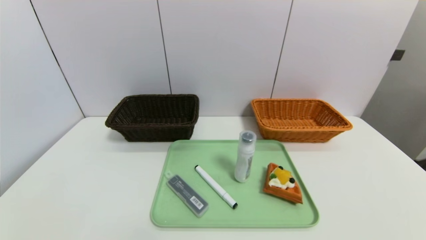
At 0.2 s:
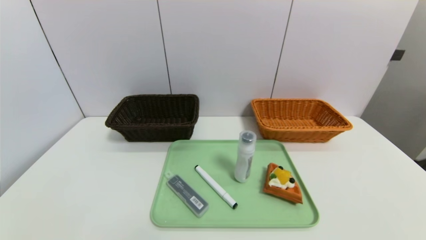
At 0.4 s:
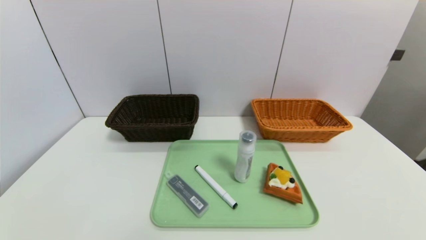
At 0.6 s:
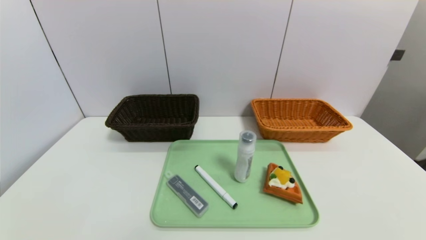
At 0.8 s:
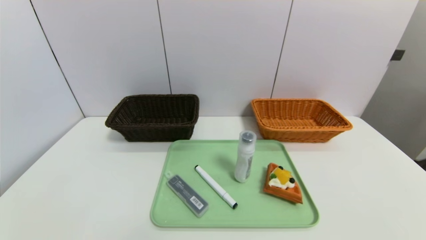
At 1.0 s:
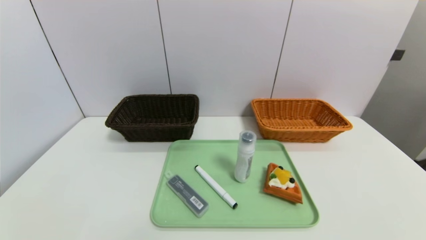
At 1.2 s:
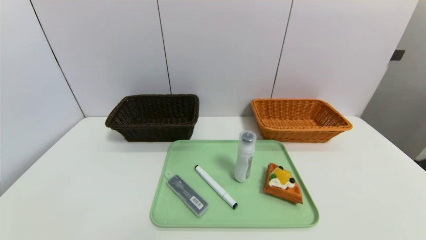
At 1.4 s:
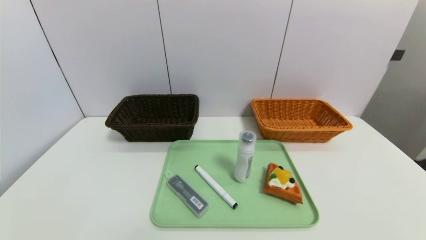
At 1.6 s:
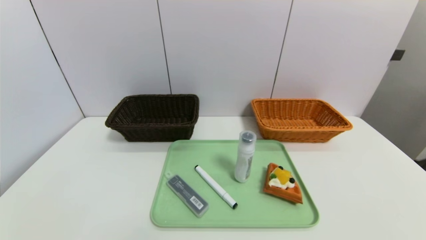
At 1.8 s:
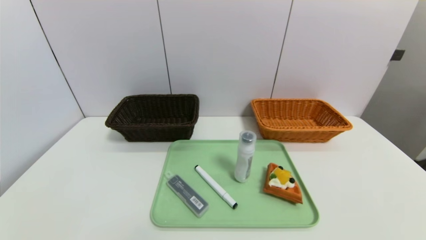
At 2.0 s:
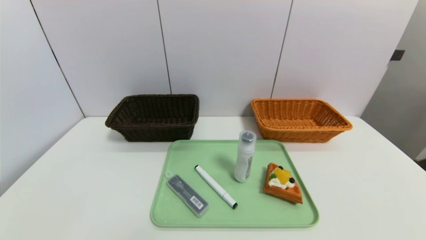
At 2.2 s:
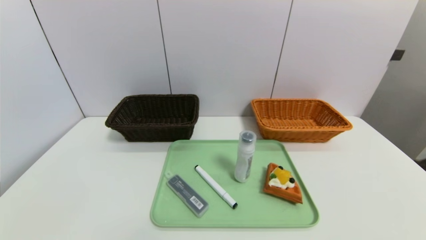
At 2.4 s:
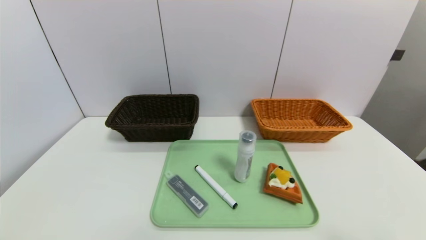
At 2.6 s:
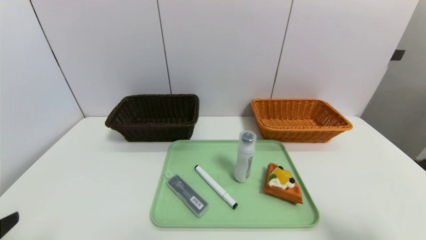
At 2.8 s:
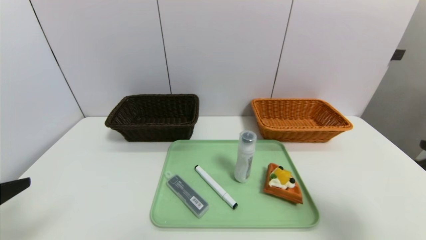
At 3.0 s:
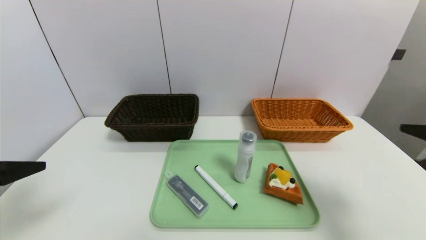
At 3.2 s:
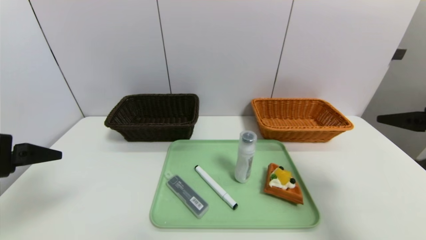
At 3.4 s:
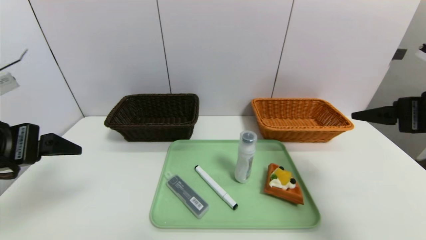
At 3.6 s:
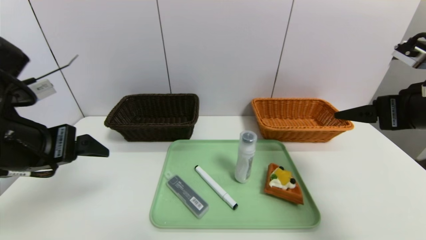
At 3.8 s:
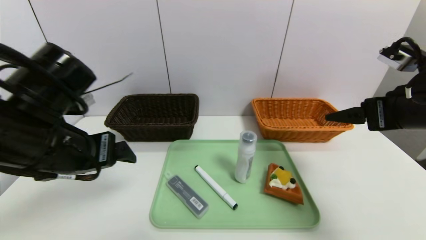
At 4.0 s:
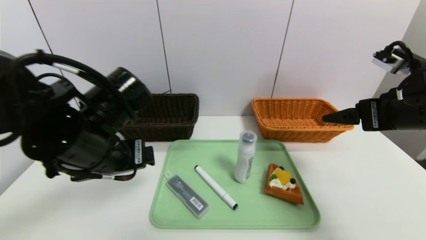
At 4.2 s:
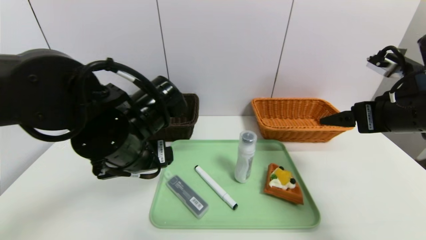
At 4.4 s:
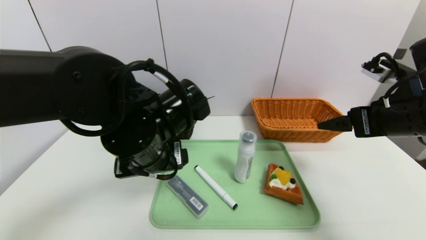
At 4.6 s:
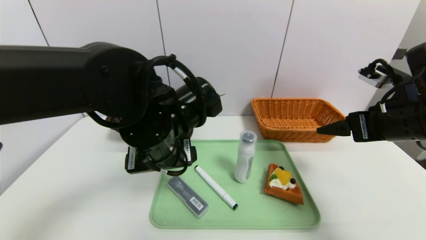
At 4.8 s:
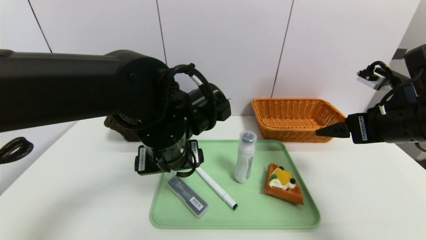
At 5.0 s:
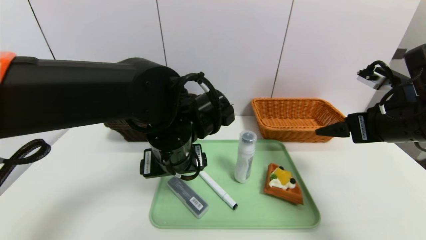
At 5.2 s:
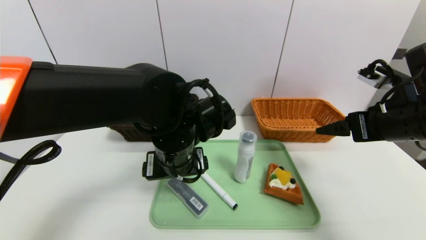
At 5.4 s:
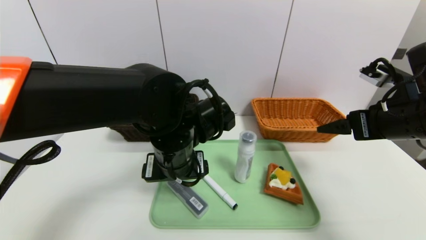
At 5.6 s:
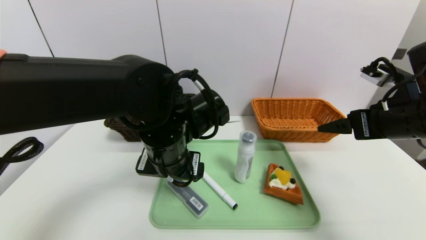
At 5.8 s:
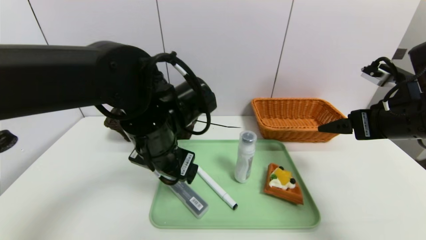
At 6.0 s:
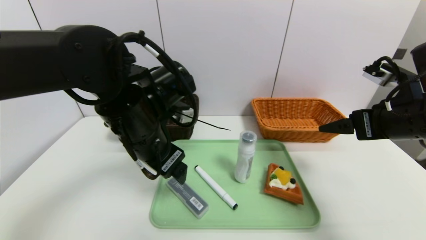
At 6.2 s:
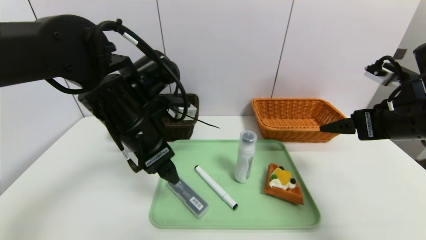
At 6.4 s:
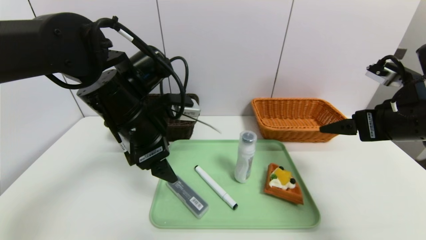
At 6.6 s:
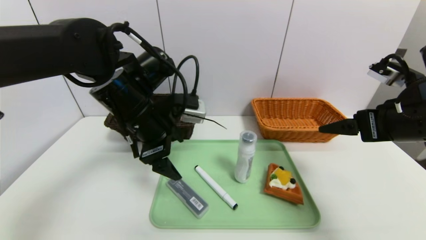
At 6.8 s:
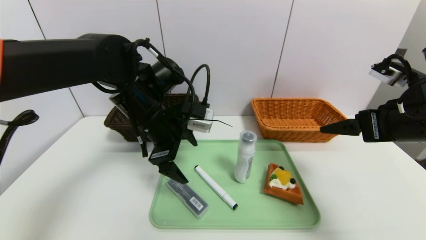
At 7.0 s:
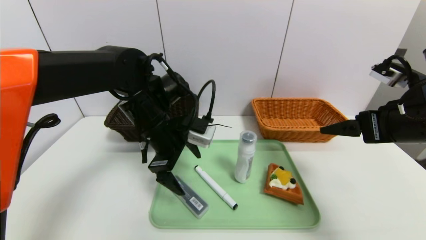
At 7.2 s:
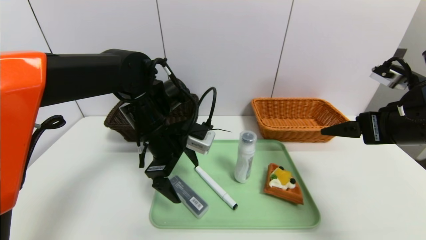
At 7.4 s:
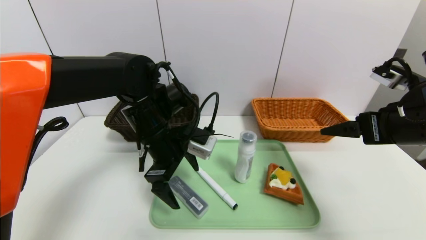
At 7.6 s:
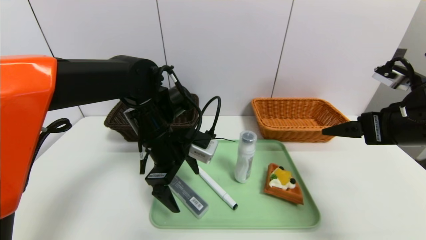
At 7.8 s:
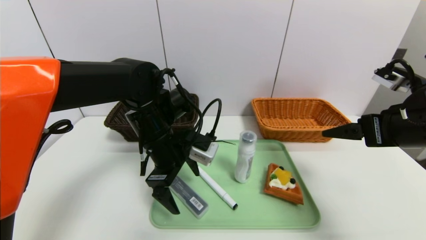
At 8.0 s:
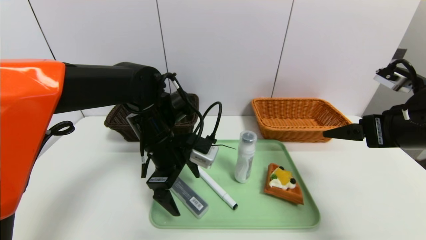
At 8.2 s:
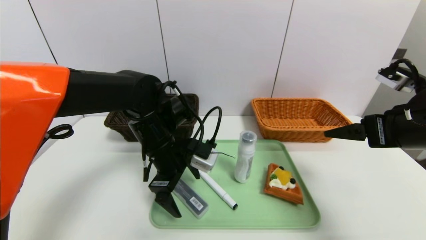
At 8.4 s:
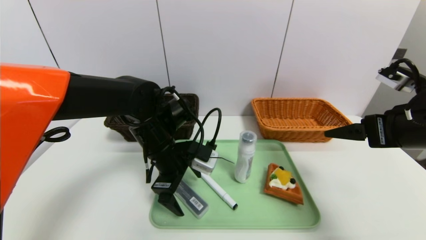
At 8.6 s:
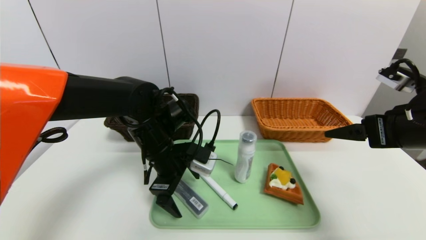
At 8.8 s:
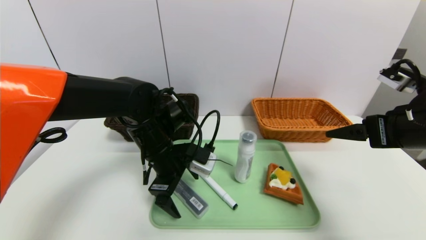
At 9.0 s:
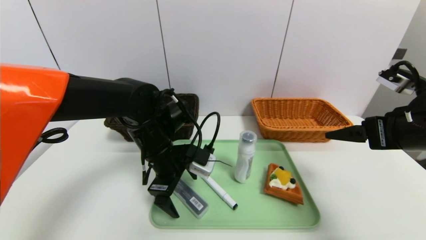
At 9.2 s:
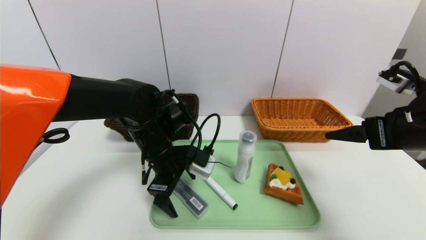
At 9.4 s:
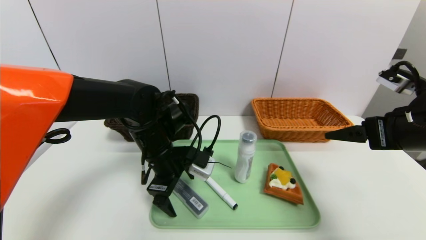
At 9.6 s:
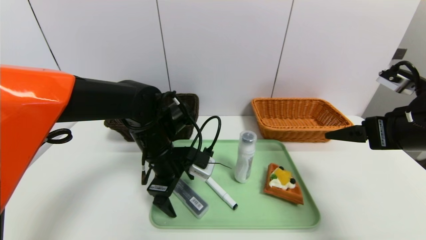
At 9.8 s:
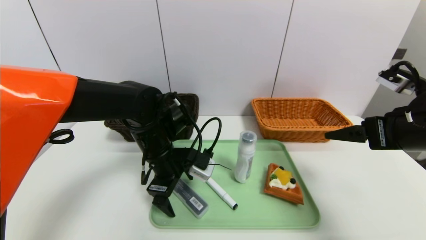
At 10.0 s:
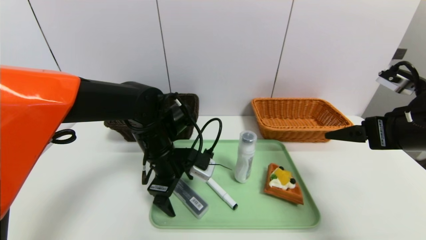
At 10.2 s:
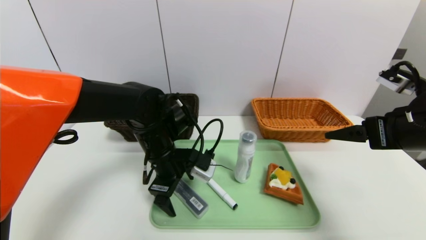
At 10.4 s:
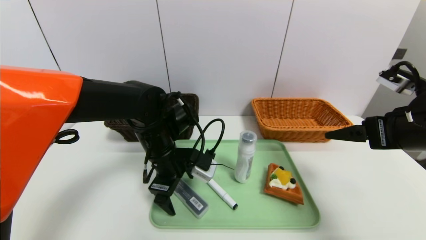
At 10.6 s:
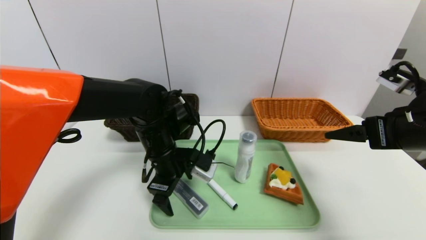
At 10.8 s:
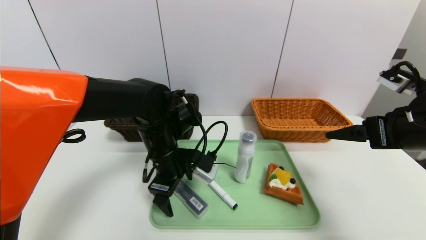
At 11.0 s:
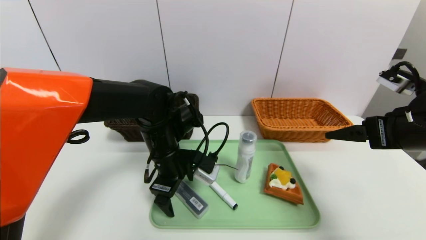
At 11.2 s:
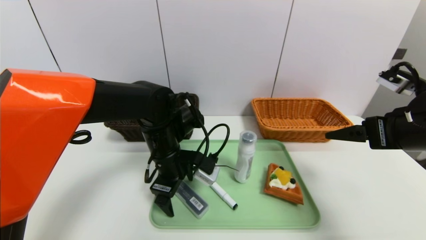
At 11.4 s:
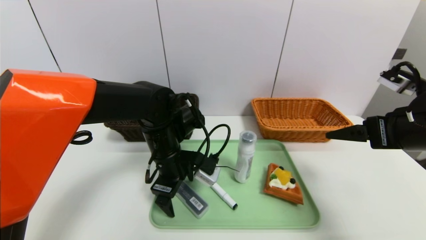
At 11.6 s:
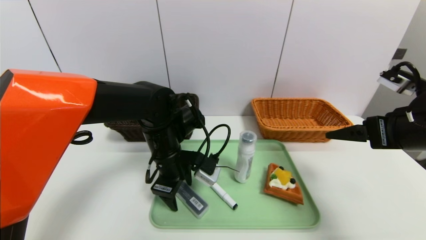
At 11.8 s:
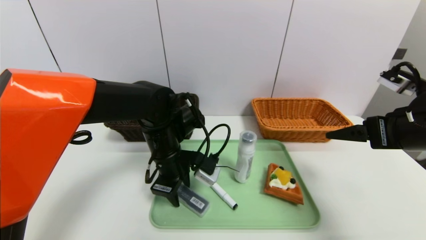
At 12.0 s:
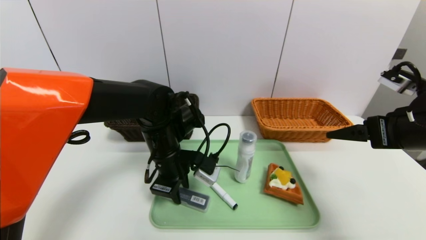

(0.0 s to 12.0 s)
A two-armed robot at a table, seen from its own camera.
Task of the whole recording: place the food in the right basket with the right gripper, and place the non food items in the left basket with the left gripper.
0.0 s - 1.6 s: Neither gripper changes place.
1.6 s - 3.0 s: The grippers both shift upward and forward by roughly 25 cm.
3.0 s - 4.4 s: The right gripper shifts approximately 10 cm forward, while the left gripper goes some 25 cm to the right and forward.
6.0 s - 7.6 s: The left gripper ends up approximately 5 cm from where it was.
7.6 s - 10.4 s: The grippers make only small movements.
10.4 s - 12.0 s: The left gripper closes.

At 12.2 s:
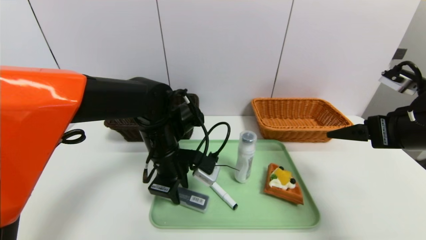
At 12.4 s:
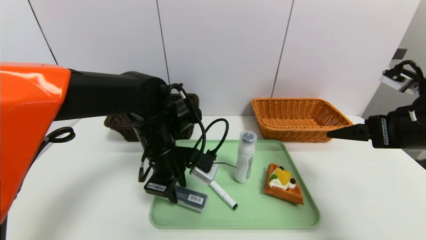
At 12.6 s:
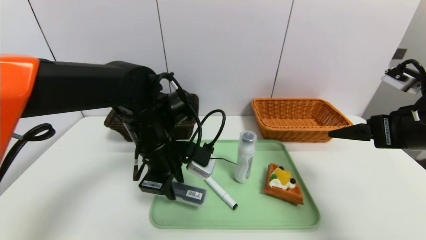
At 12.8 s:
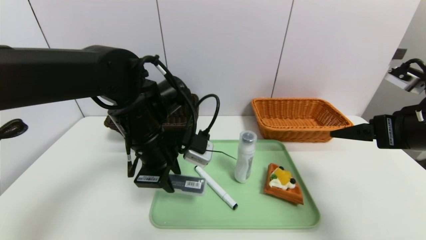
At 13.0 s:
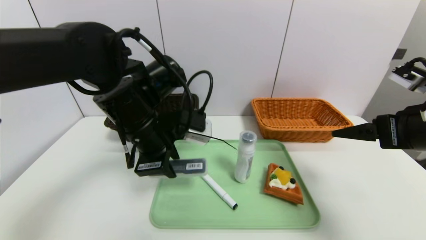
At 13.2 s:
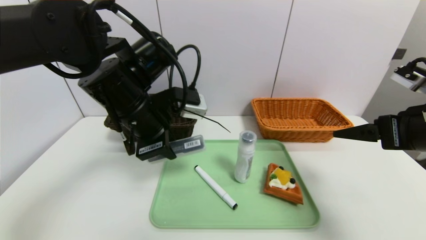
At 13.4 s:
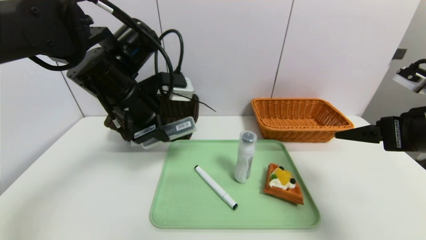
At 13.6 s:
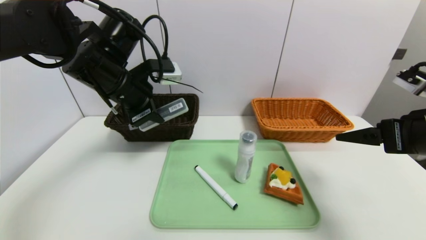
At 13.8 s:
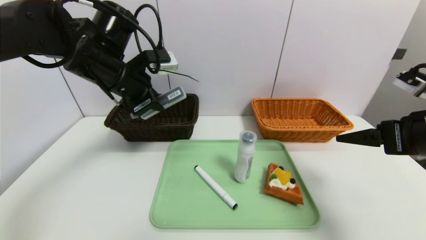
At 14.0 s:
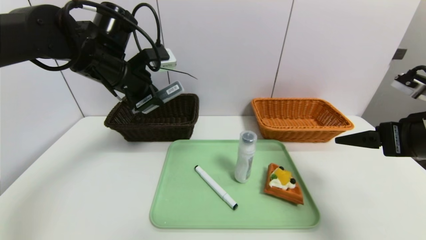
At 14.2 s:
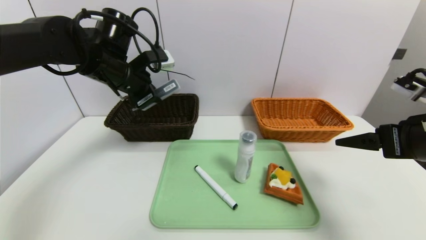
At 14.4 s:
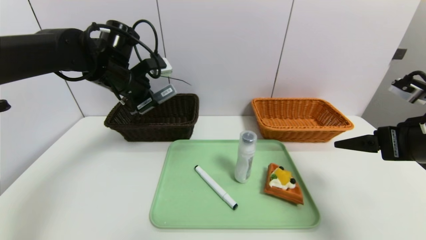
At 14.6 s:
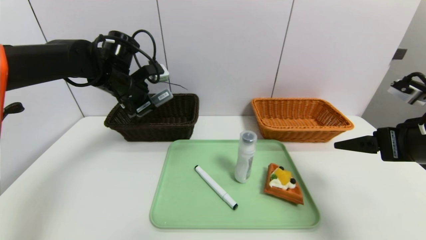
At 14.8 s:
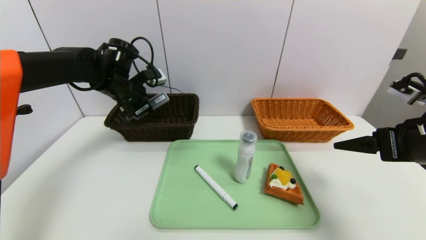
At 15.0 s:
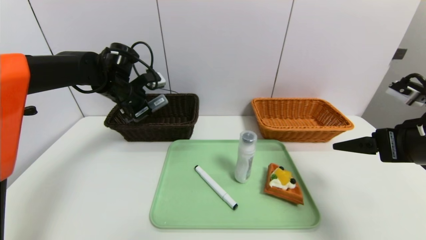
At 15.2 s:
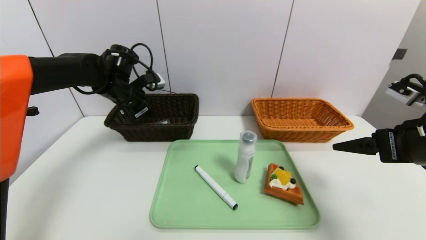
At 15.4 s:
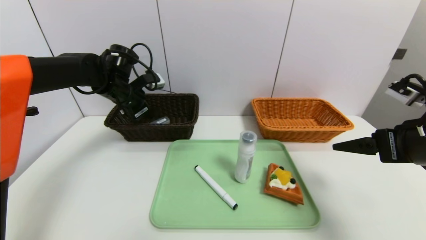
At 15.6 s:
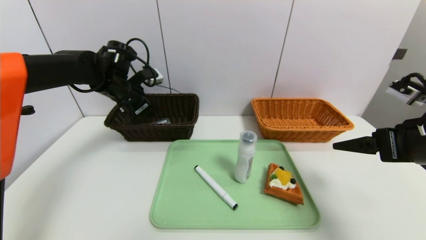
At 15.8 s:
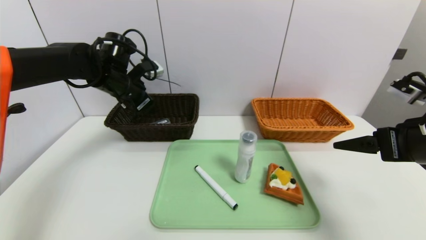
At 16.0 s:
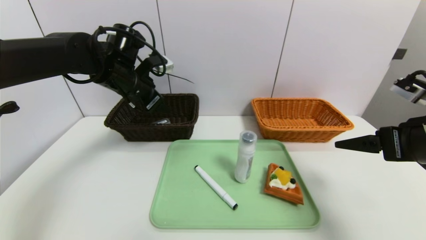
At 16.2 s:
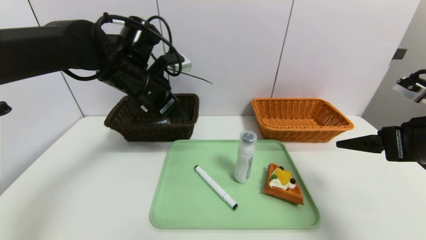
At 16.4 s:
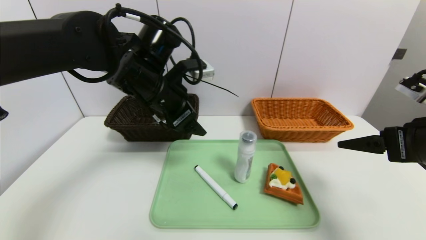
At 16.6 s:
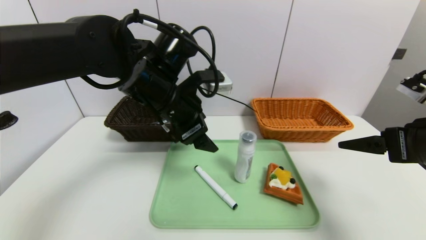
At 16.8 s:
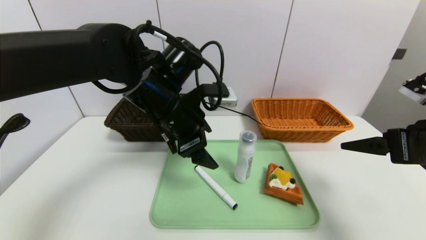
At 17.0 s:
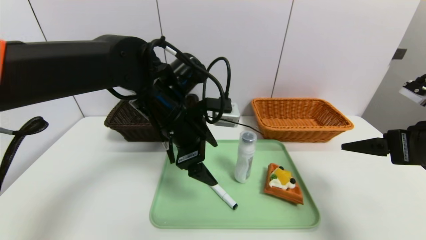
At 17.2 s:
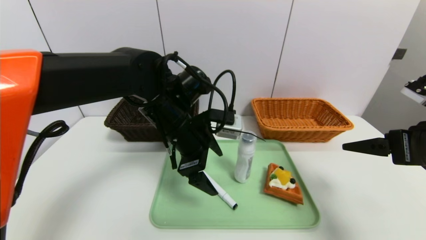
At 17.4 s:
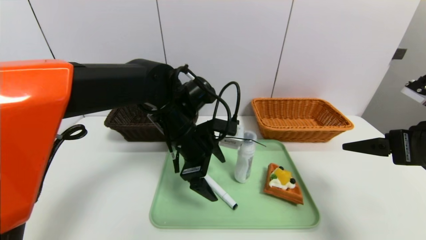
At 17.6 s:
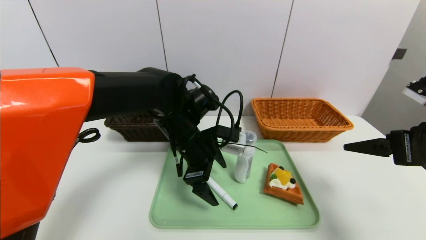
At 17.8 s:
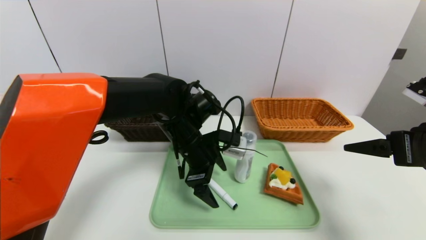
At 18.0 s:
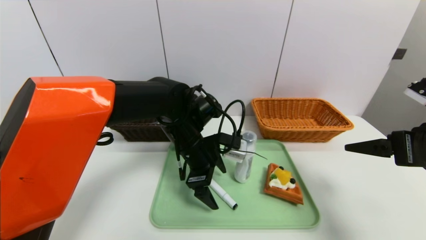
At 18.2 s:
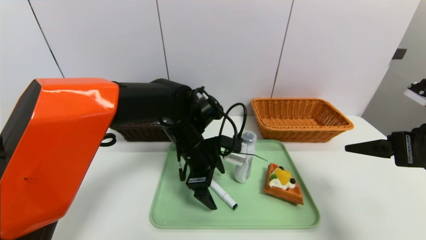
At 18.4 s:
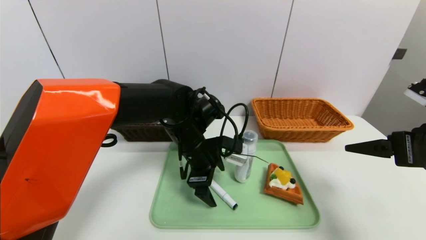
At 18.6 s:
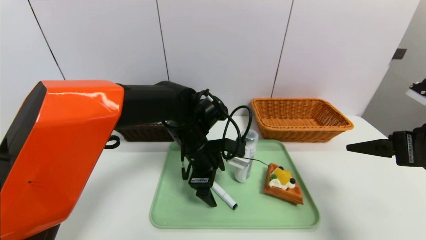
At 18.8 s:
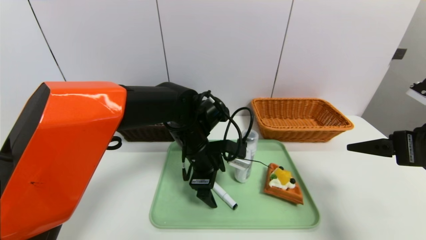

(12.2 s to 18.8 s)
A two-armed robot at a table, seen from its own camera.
Task of the whole recording: place the food in the right basket with the right gripper, and place the non food items in the left basket with the left gripper.
Step, 12.2 s - 15.6 s: Grasp the compass and put it in the left basket.
12.2 s - 13.8 s: The left gripper is displaced upward and to the left by some 15 cm.
13.8 s - 15.4 s: The left gripper travels forward and downward by about 10 cm, and opens.
15.4 s - 17.2 s: The left gripper heads to the right and backward, covering roughly 20 cm.
17.2 s - 18.8 s: The left gripper shifts approximately 5 cm downward.
